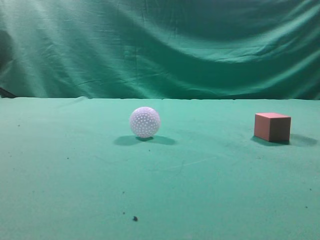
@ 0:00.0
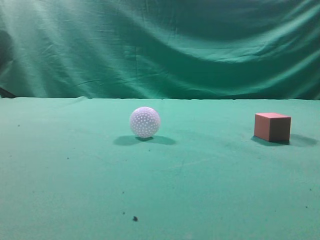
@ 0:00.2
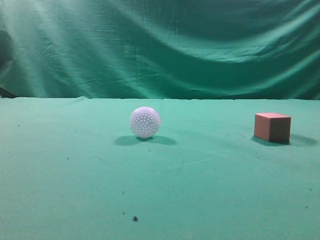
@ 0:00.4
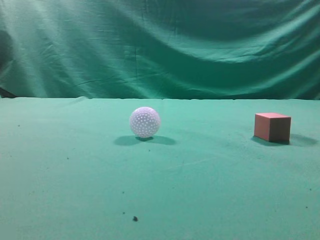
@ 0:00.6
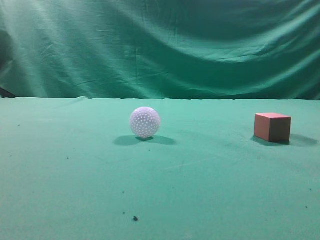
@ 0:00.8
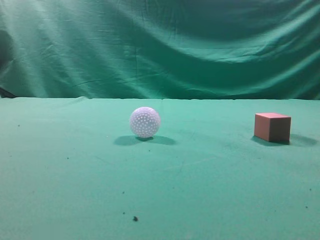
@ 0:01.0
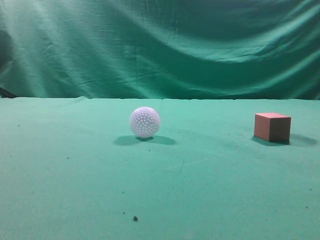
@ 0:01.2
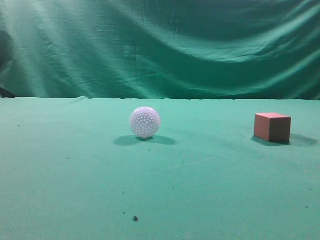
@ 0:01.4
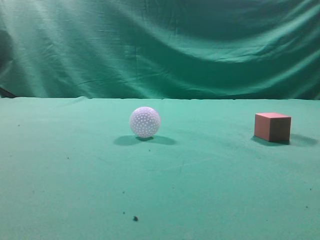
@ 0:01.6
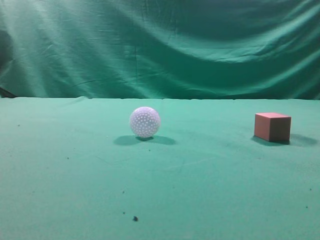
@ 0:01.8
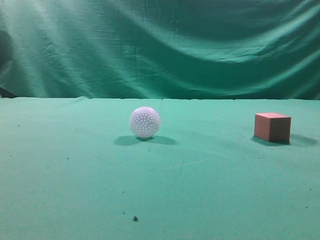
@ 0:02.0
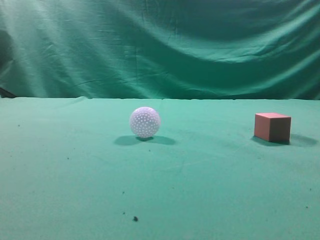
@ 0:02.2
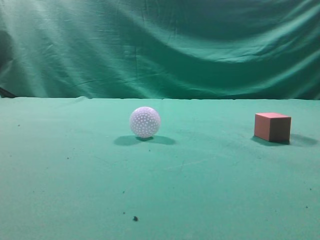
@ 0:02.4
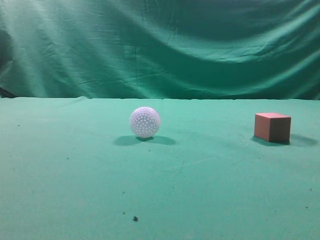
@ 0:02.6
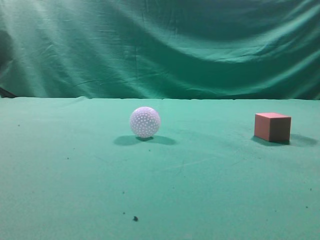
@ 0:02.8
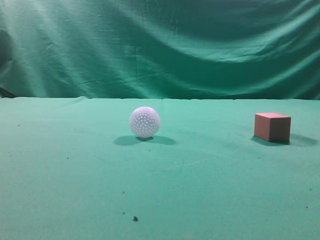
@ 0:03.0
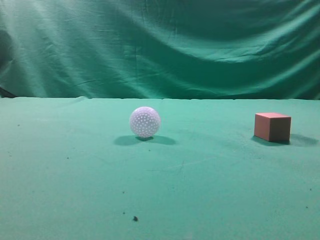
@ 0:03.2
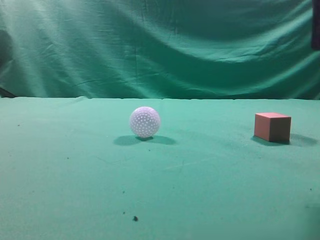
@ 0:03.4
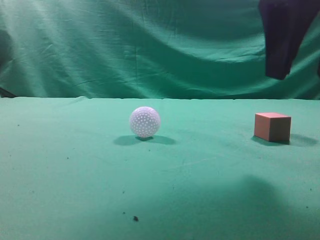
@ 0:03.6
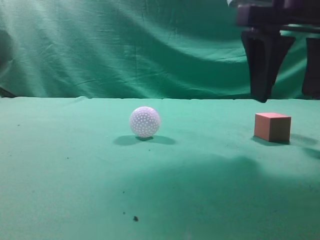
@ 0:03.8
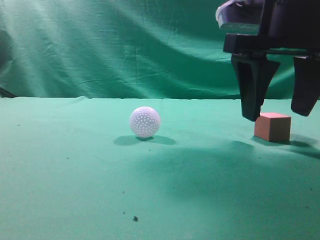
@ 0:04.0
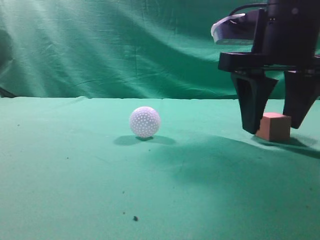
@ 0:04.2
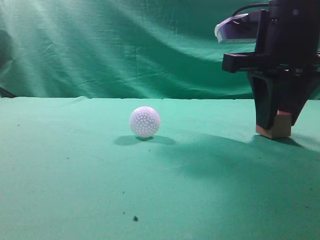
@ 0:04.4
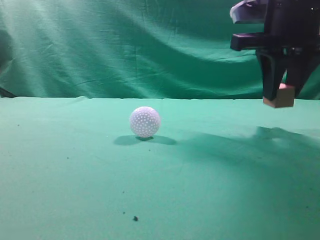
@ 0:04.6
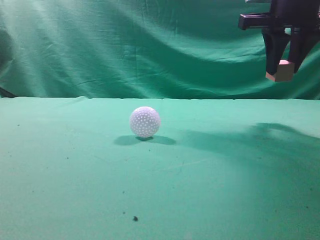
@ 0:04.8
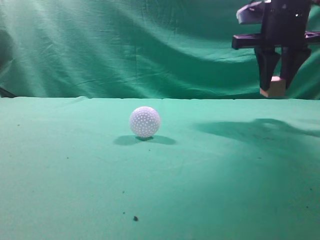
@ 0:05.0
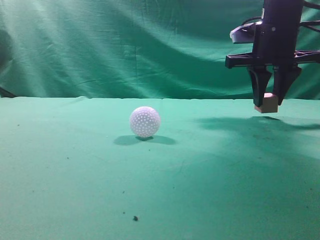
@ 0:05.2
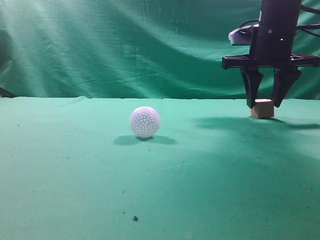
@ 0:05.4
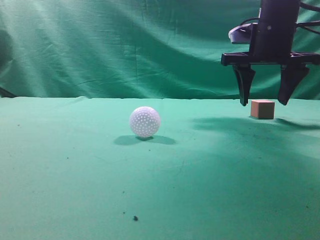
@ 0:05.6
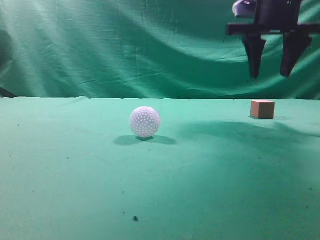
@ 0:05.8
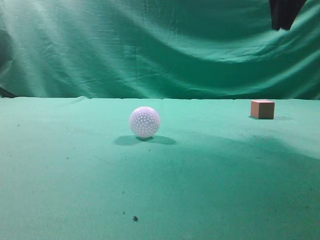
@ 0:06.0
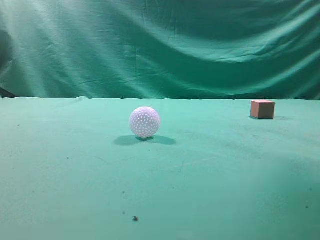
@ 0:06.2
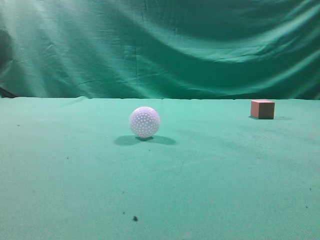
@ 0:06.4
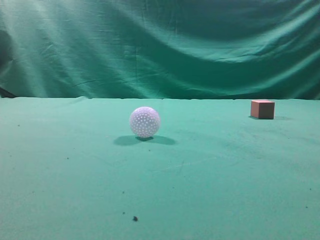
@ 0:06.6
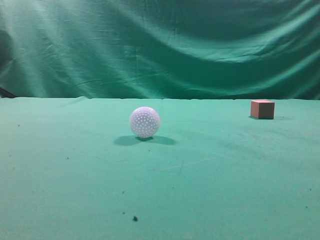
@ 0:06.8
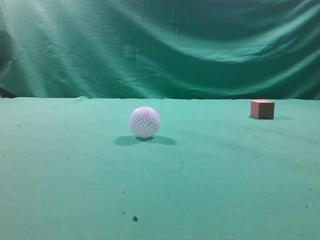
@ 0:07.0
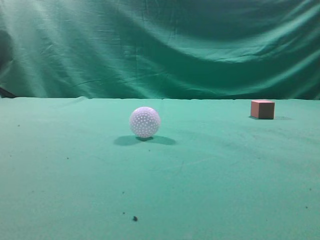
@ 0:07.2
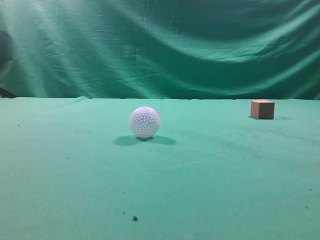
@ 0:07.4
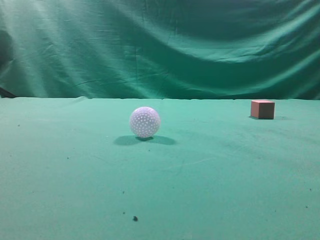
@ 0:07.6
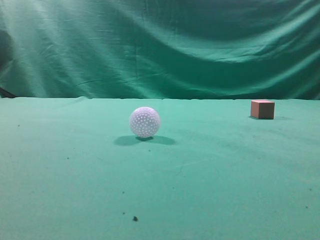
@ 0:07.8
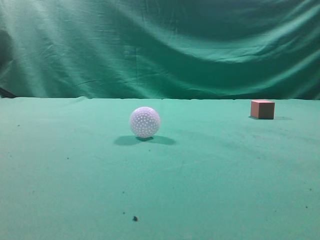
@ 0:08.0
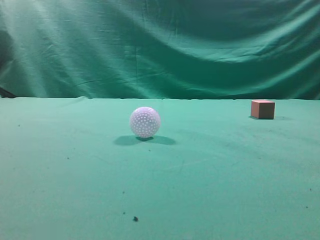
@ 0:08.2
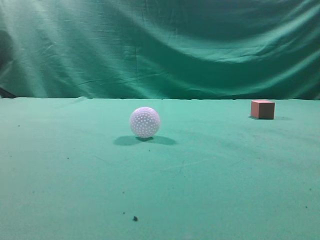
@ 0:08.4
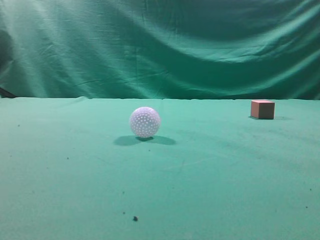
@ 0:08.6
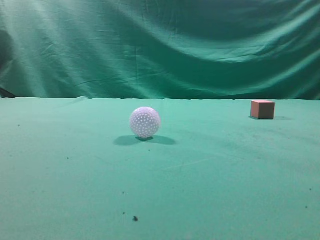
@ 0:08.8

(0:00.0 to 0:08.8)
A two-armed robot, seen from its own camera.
Task of the whole recording: pick up the cube block and place it in another position on the table.
Step, 0:00.0 - 0:04.4: Pick up the small cube.
Step, 0:04.6 - 0:05.4: Place the small cube on the ahead of the table.
0:03.0 - 0:04.4: The right gripper is displaced forward, downward and to the left by about 20 cm, and opens its fingers.
0:04.4 - 0:05.8: The right gripper heads forward and upward, covering about 15 cm.
0:05.8 - 0:07.4: The right gripper shifts roughly 35 cm backward, and closes up.
